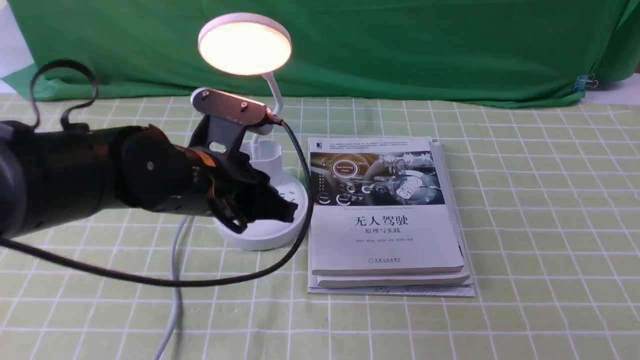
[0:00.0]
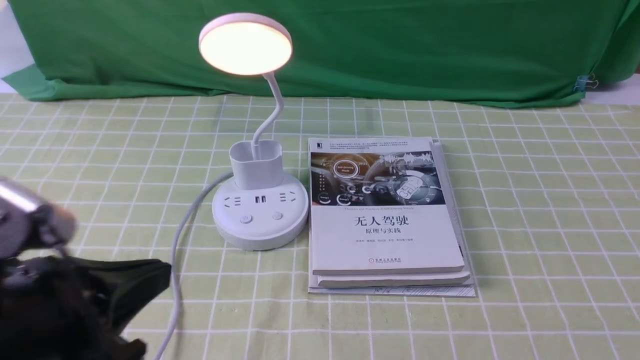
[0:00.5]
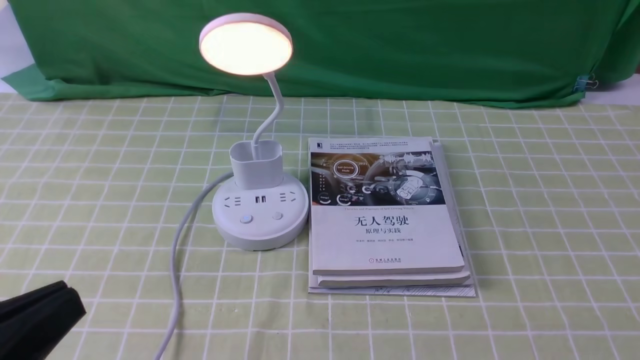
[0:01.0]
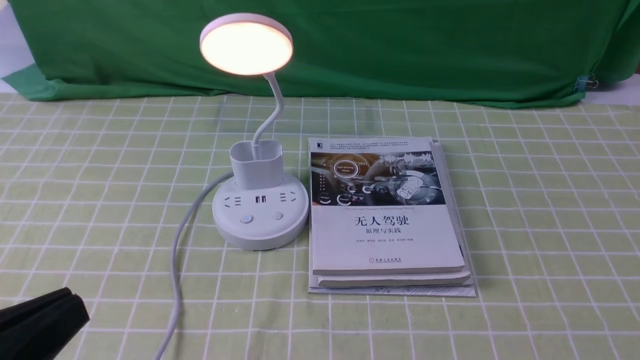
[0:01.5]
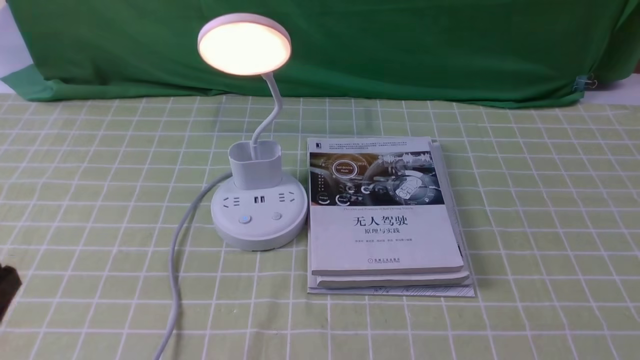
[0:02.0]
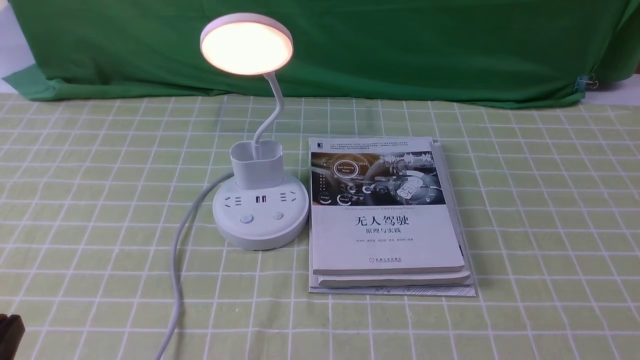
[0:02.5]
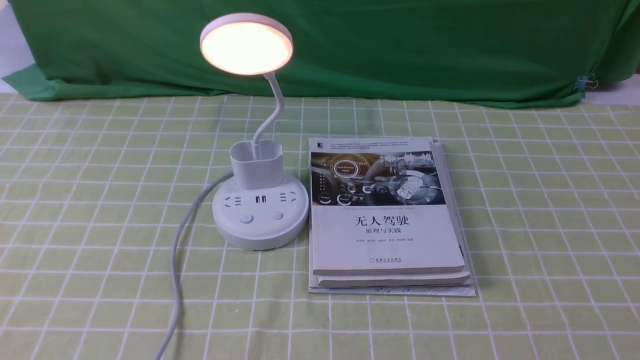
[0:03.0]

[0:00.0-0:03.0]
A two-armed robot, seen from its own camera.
0:00.0 to 0:01.5: The left gripper moves backward and to the left, about 25 cm.
0:01.5 to 0:03.0: The left gripper heads downward, covering about 10 cm.

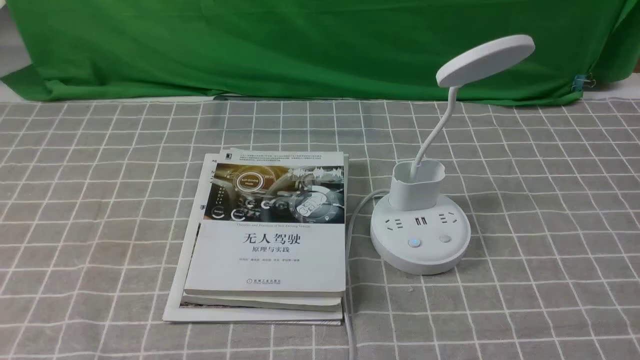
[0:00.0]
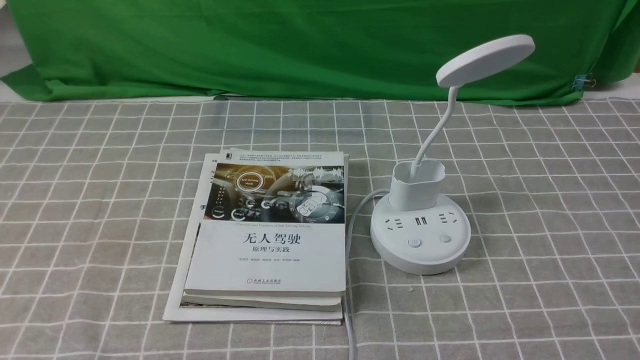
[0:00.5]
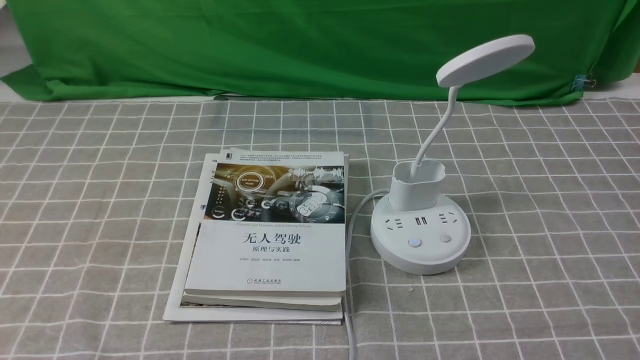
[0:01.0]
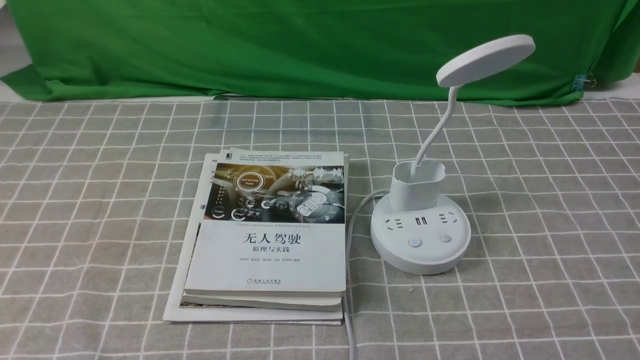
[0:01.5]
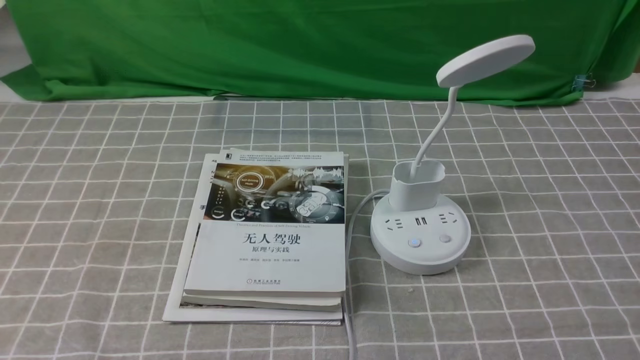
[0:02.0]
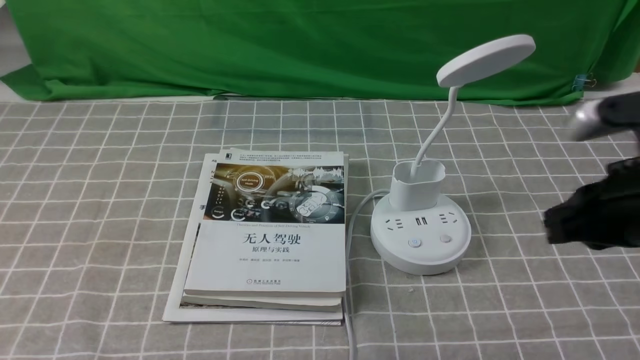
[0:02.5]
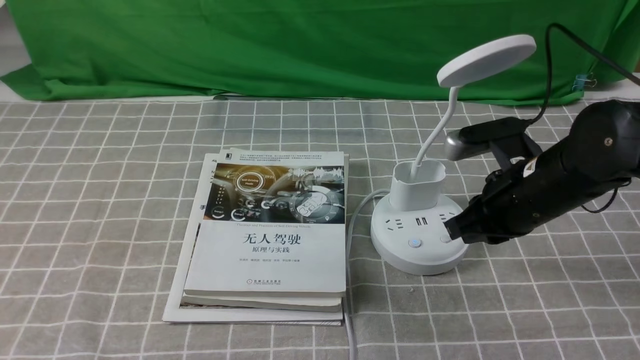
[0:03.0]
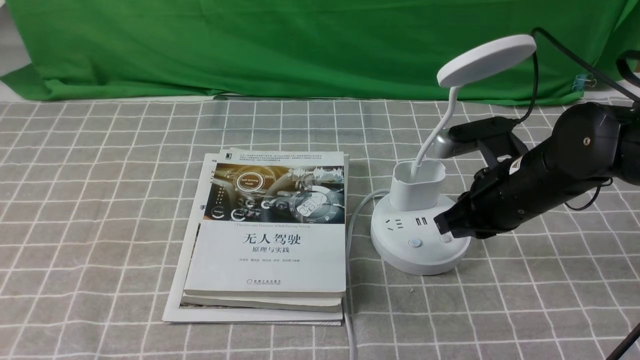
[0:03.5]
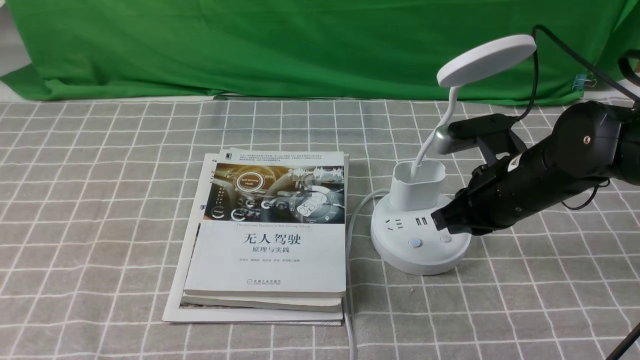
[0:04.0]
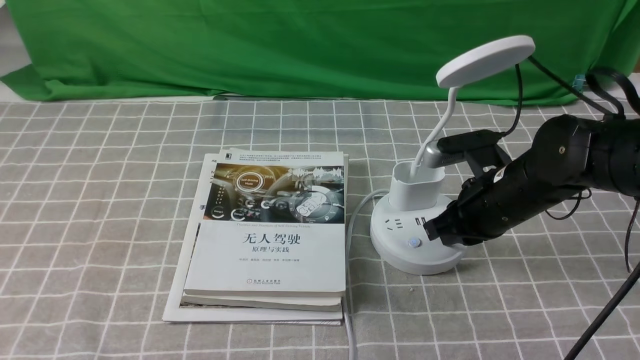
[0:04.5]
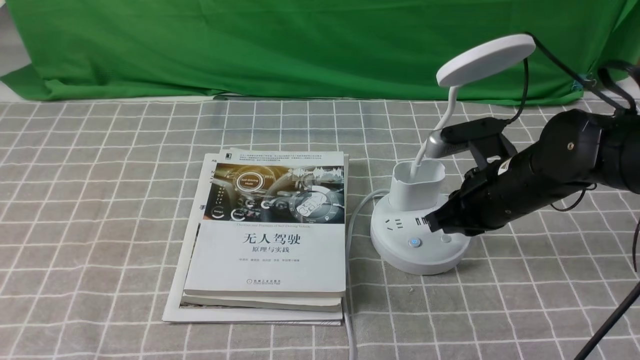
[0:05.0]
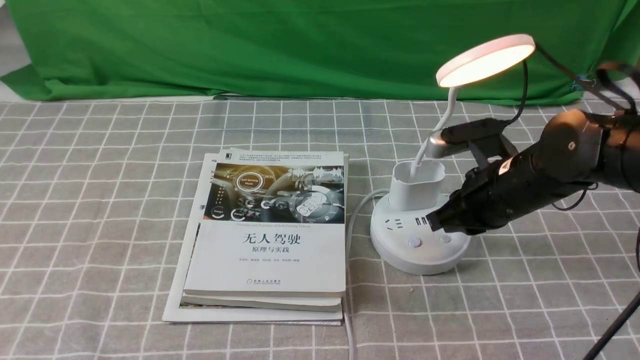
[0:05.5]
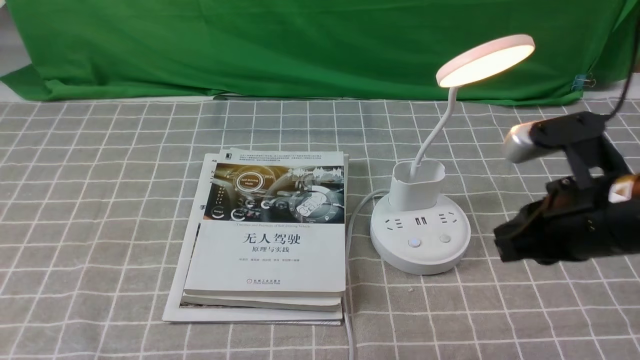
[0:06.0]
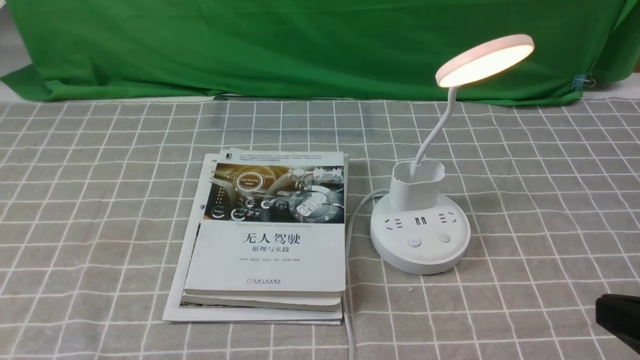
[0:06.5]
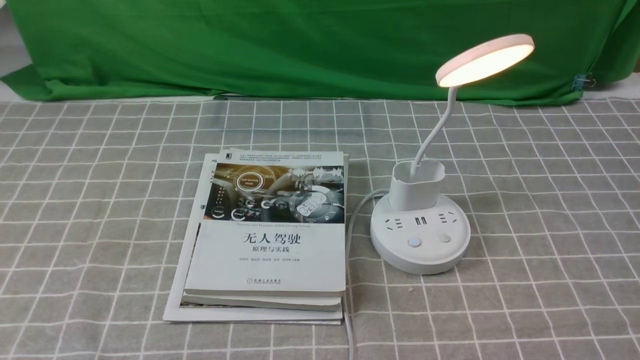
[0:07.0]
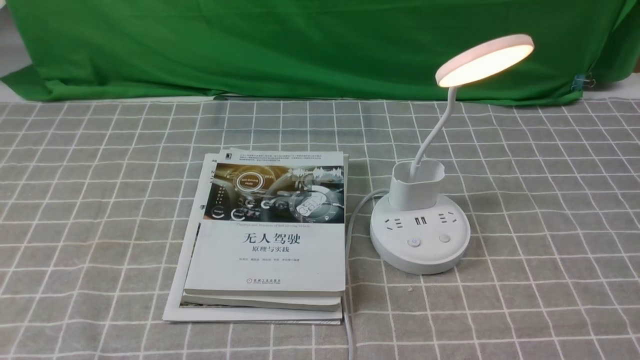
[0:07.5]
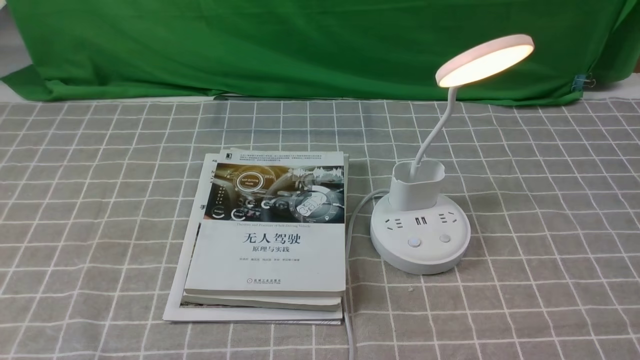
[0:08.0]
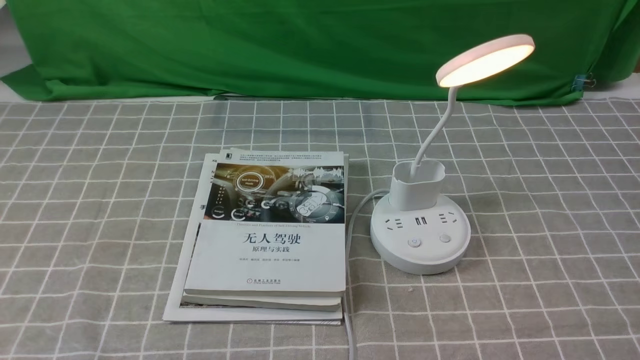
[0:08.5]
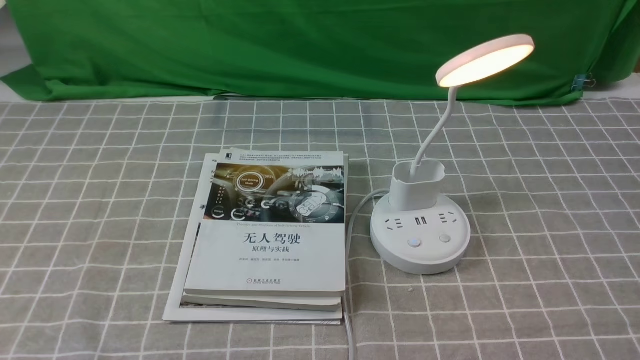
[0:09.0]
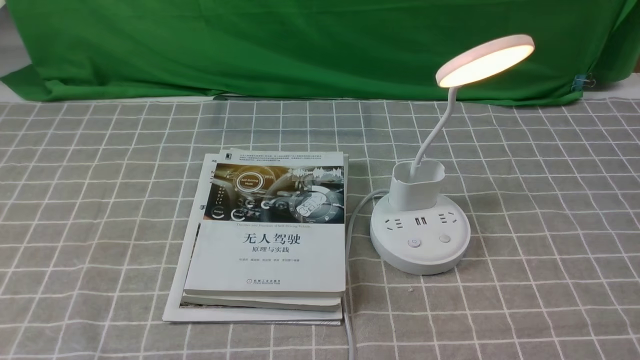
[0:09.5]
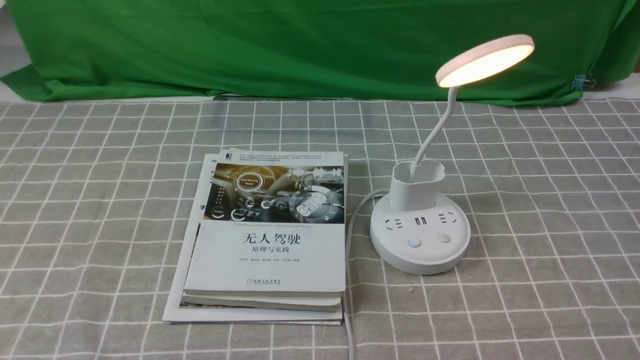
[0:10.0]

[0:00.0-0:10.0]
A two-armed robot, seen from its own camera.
Step, 0:00.0 to 0:05.5: use the right arm to press the button switch on the lamp holder.
0:02.0 to 0:04.0: The right gripper travels forward and to the left by roughly 30 cm, and closes up.
0:04.0 to 0:06.0: The right gripper goes approximately 10 cm backward and upward.
0:06.0 to 0:08.0: The right gripper is displaced backward and to the right by some 25 cm.

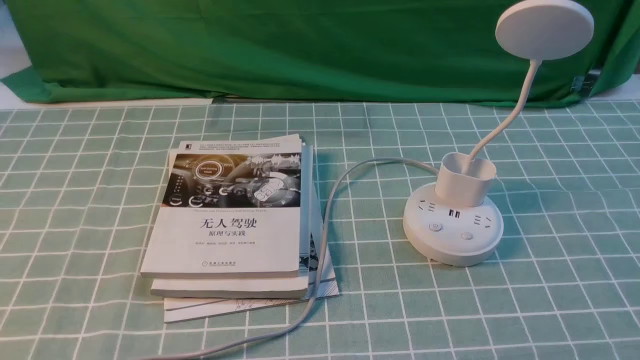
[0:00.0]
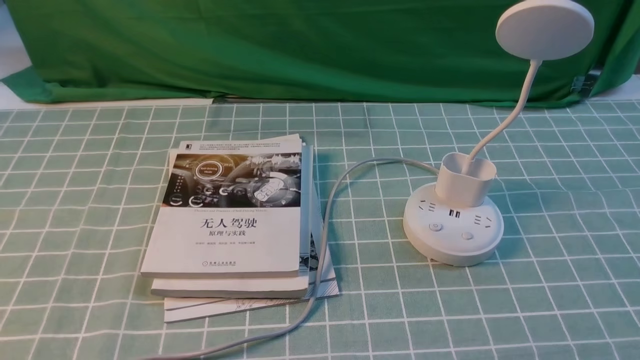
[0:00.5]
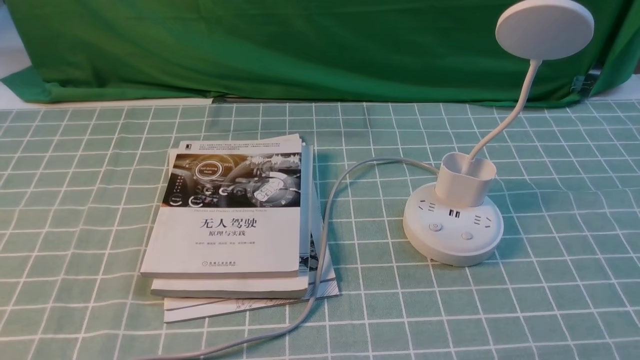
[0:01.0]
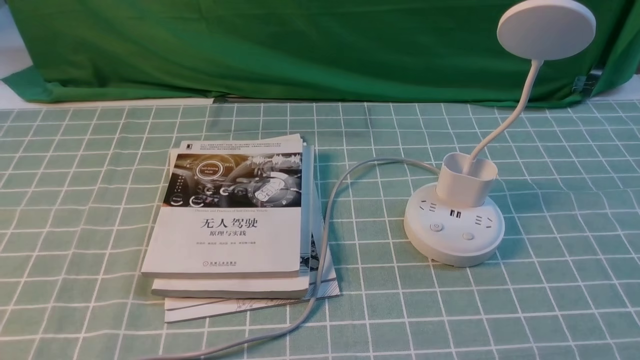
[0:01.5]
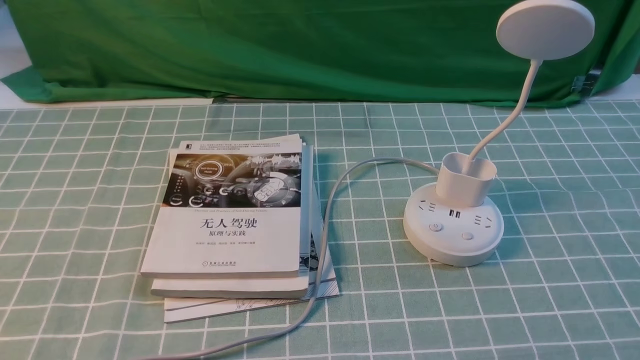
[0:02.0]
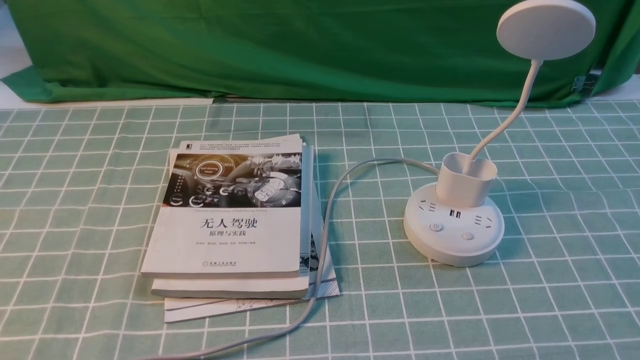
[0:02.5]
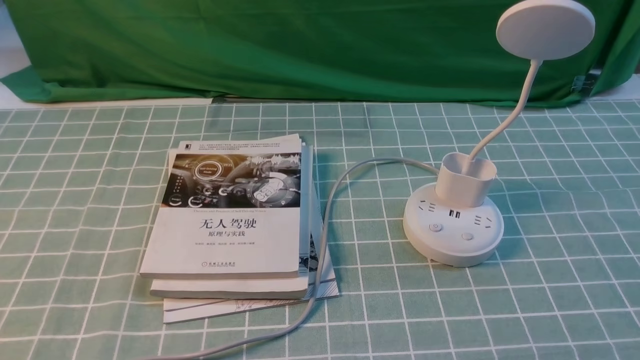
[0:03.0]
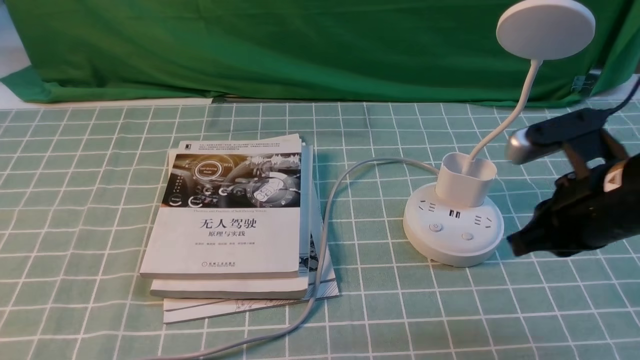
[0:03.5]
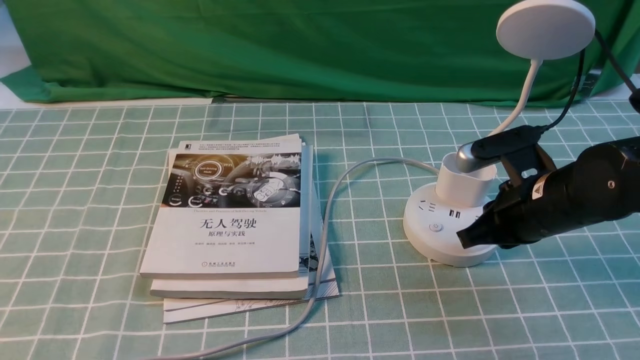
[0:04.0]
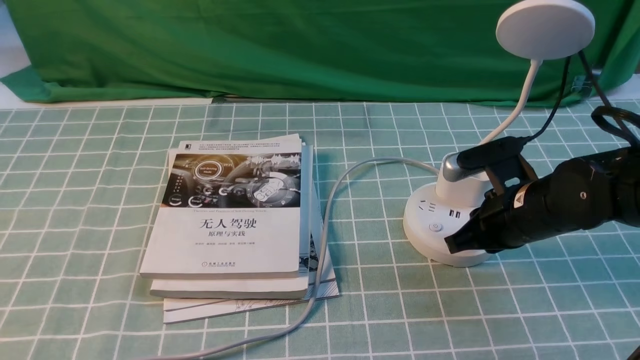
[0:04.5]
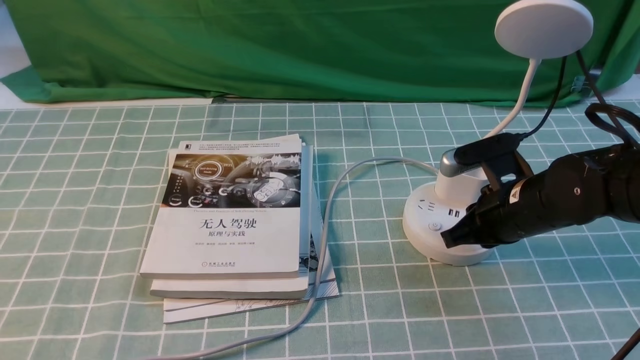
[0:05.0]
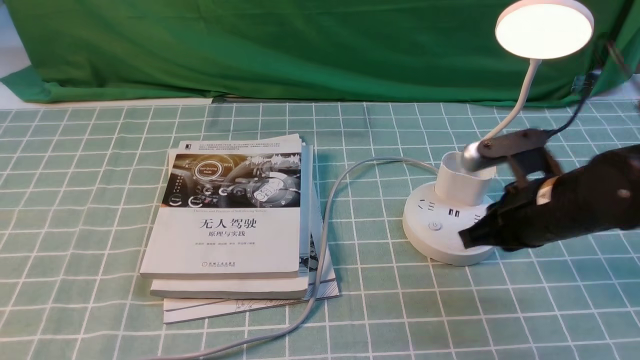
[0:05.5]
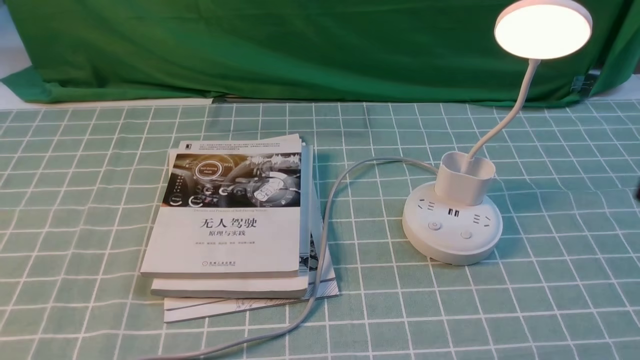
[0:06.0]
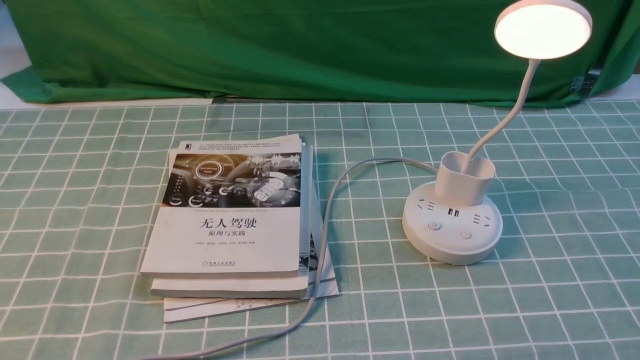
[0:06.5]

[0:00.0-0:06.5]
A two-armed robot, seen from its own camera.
Step, 0:00.0 to 0:05.5: use the right arm to press the button switch on the lamp holder.
0:02.0 to 0:04.5: The right gripper goes about 30 cm forward and to the left, and closes up.
0:04.5 to 0:06.5: The right gripper travels backward and upward by about 30 cm.
